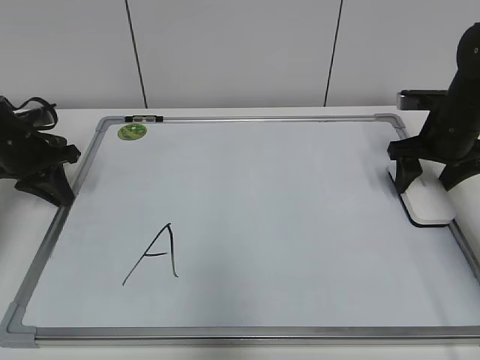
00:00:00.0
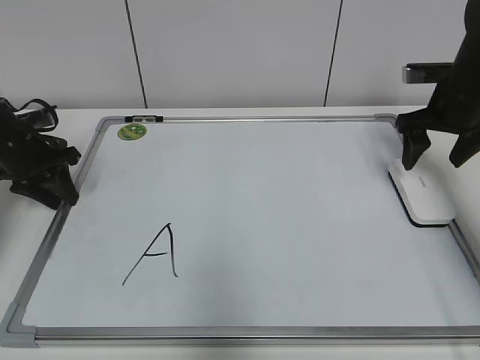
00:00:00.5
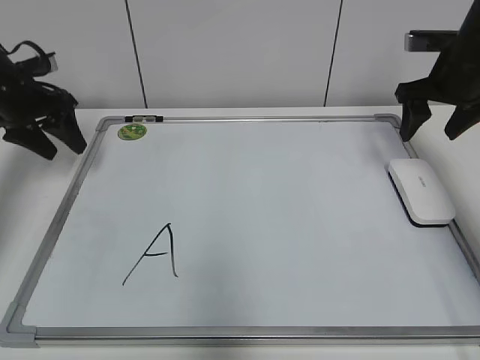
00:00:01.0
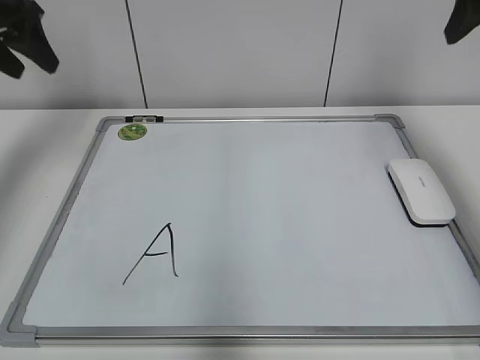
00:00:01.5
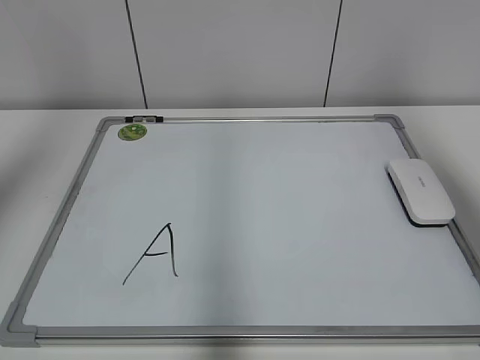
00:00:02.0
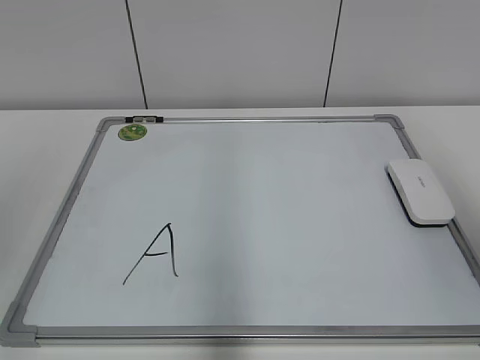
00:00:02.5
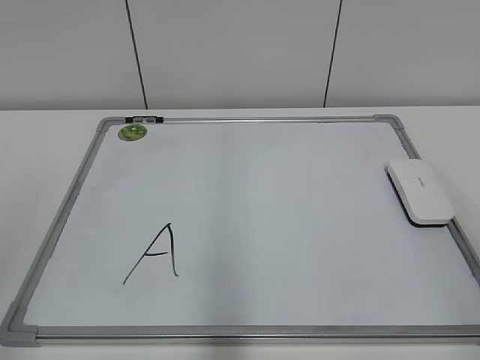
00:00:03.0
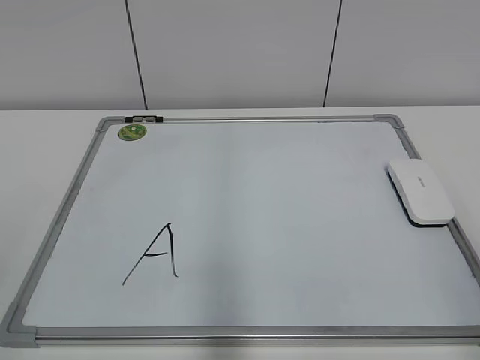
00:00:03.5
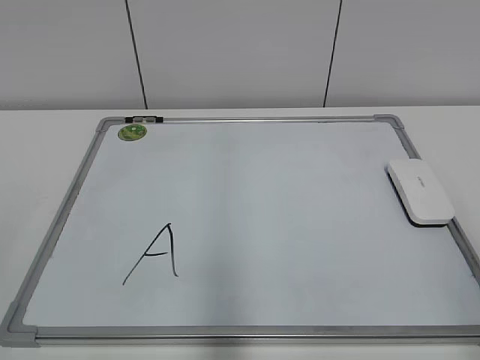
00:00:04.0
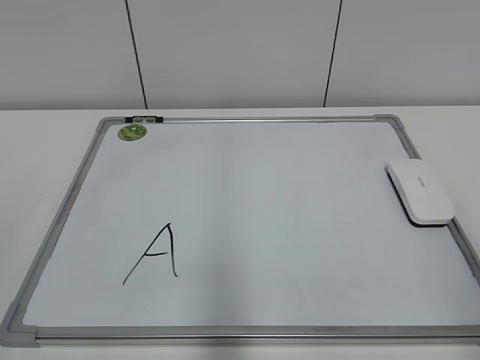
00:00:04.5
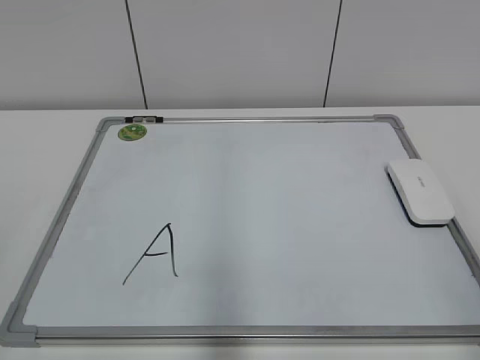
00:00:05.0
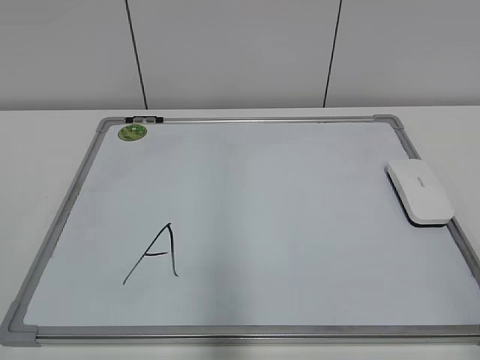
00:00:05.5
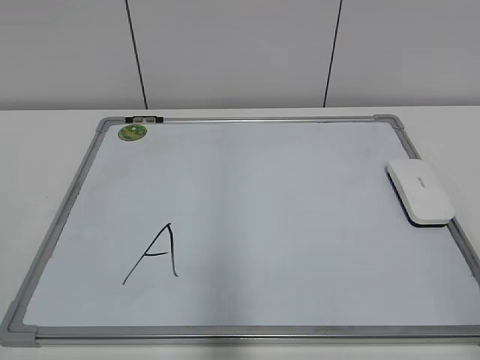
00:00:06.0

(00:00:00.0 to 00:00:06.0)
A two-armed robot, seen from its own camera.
Task of the whole recording: pick up the eraser on the blackboard and erase the letter "a".
00:00:00.0 - 00:00:02.0: The two grippers go roughly 35 cm upward and backward. The left gripper opens its fingers.
00:00:02.0 - 00:00:04.0: The left gripper shifts roughly 30 cm backward and downward; the right gripper heads downward and backward, covering roughly 25 cm.

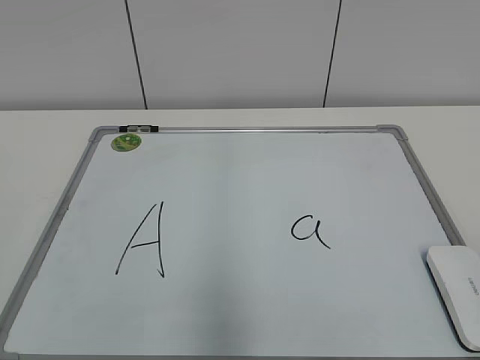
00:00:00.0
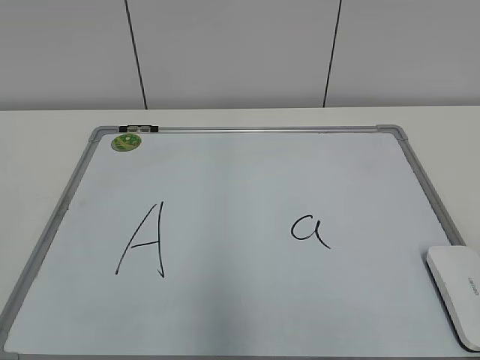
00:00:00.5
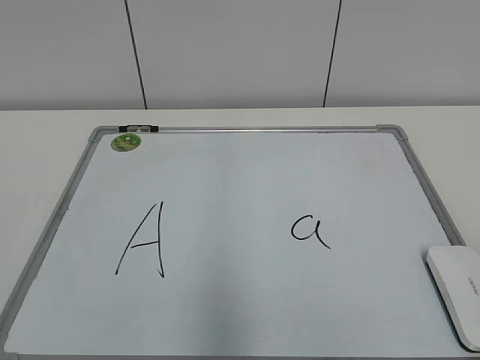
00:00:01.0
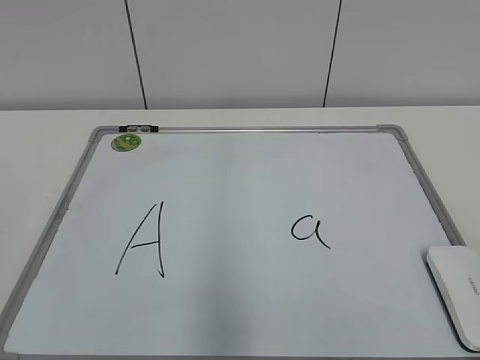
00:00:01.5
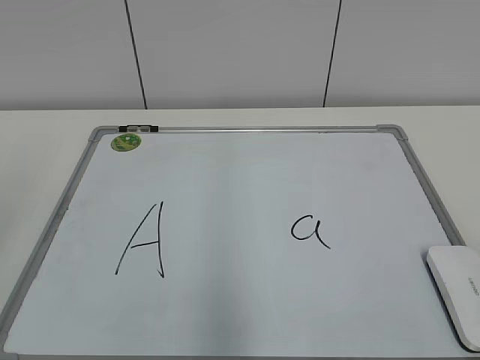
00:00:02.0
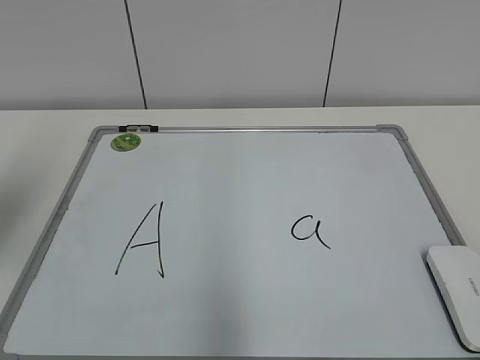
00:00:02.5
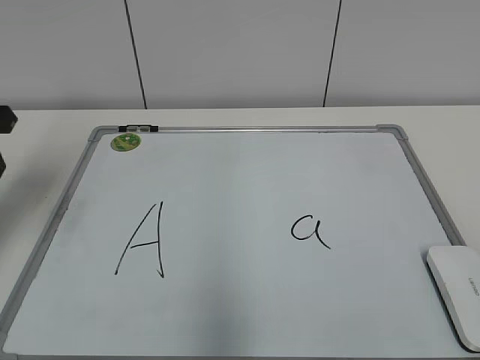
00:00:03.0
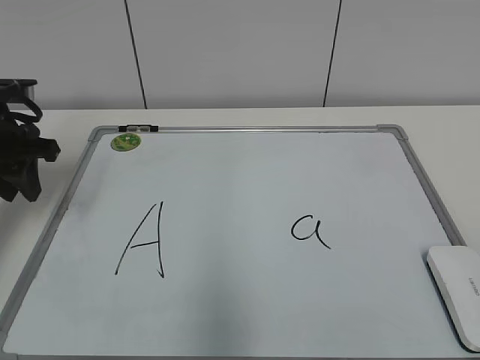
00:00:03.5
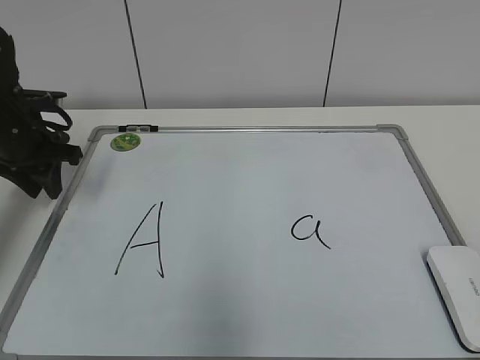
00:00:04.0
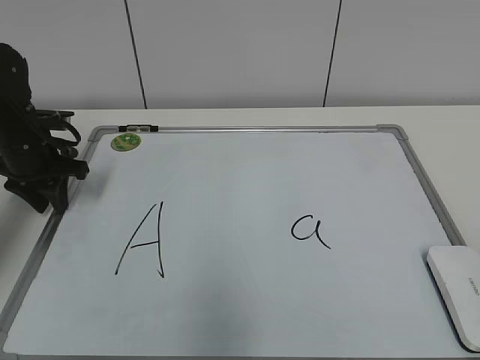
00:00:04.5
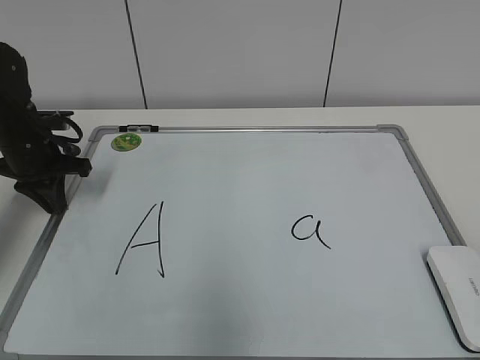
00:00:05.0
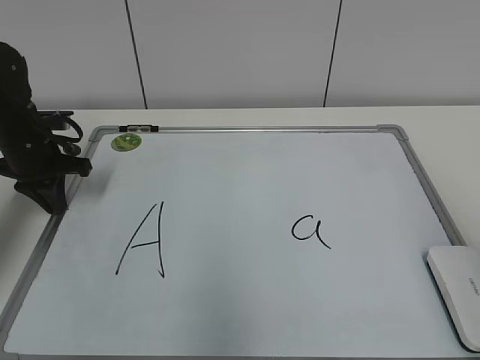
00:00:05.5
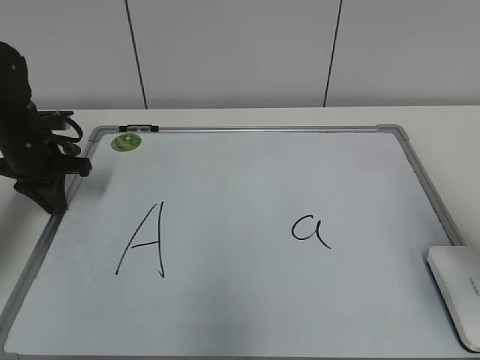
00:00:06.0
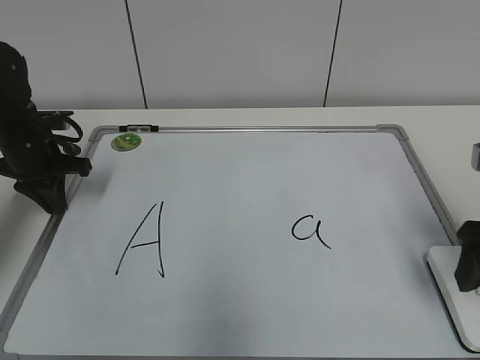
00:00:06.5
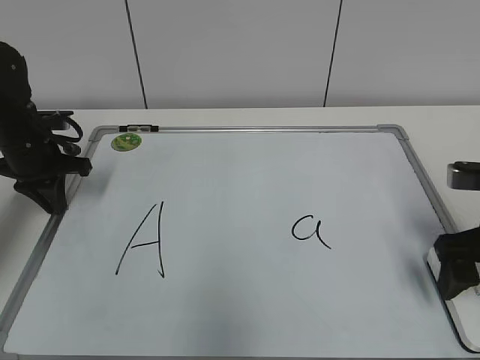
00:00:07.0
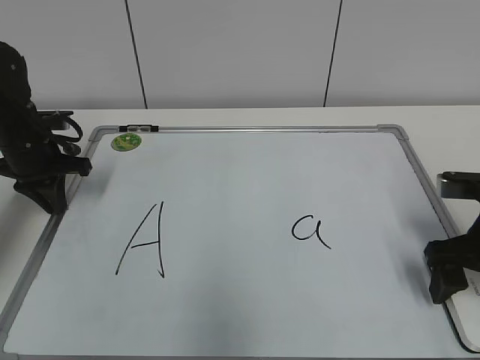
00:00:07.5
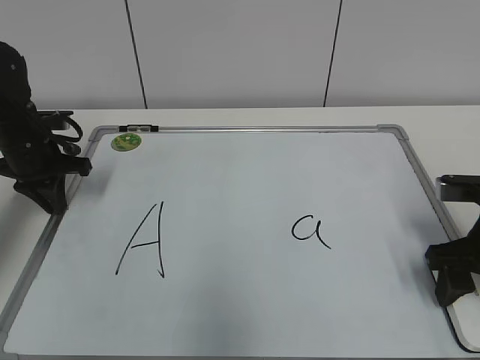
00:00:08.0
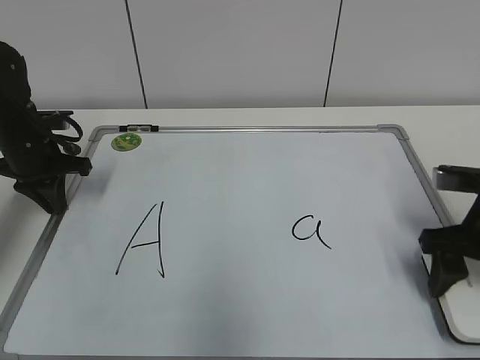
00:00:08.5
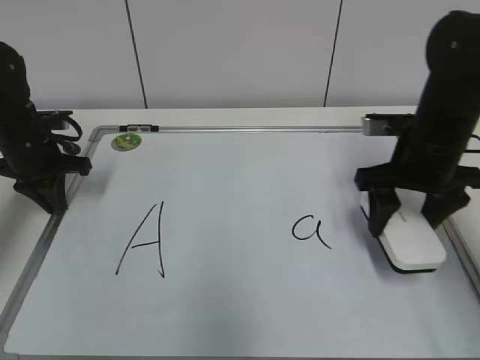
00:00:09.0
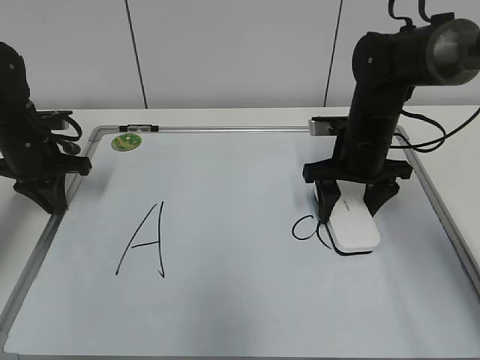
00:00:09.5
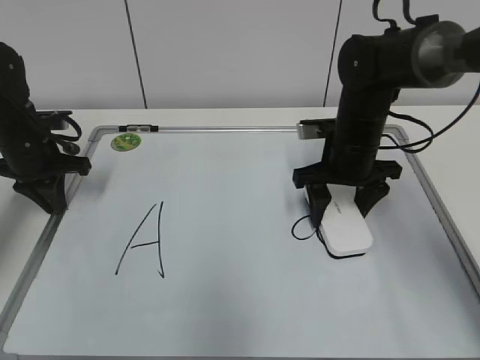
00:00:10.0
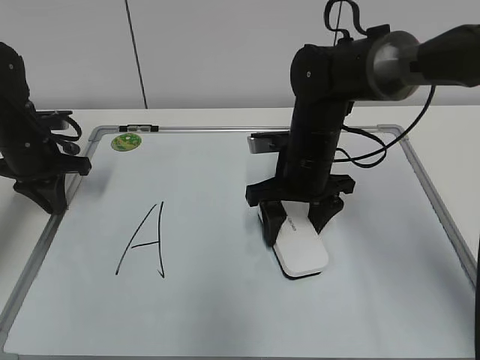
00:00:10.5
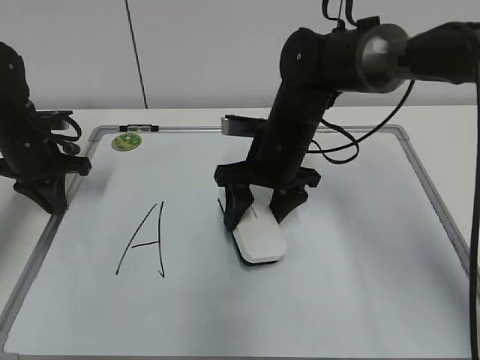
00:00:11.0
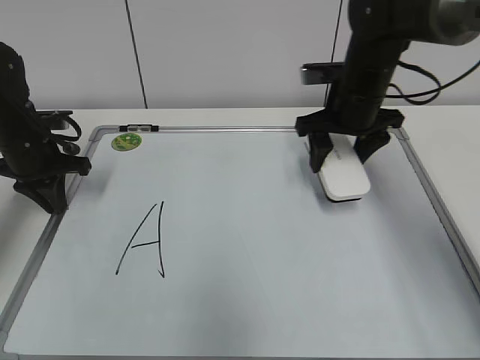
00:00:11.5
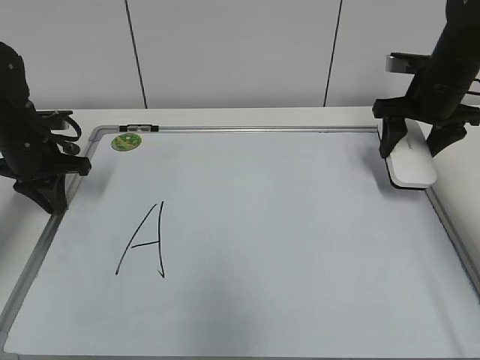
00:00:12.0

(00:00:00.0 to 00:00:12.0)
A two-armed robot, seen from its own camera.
Task of the whole recording: pick up the eraser on the blackboard and erase the letter "a".
Step, 00:00:00.0 - 00:00:04.5: Hold the drawing board steady with your left hand.
Step, 00:00:05.5 - 00:00:08.0: Grab the eraser with your right hand.
Step, 00:00:08.5 - 00:00:10.5: Erase the letter a with your right hand.
00:00:02.0 - 00:00:04.0: The left gripper goes approximately 35 cm forward and downward.
00:00:04.0 - 00:00:06.0: The right gripper moves forward, about 20 cm, and opens its fingers, while the left gripper closes up.
00:00:06.0 - 00:00:08.0: The right gripper shifts approximately 15 cm downward and forward, and closes its fingers.
00:00:08.0 - 00:00:10.0: The right gripper travels forward and to the left by roughly 20 cm.
00:00:10.0 - 00:00:12.0: The right gripper travels to the right and upward by about 15 cm.

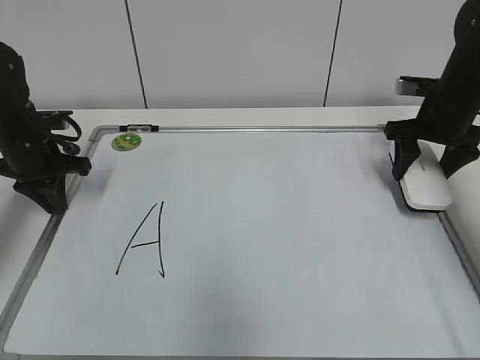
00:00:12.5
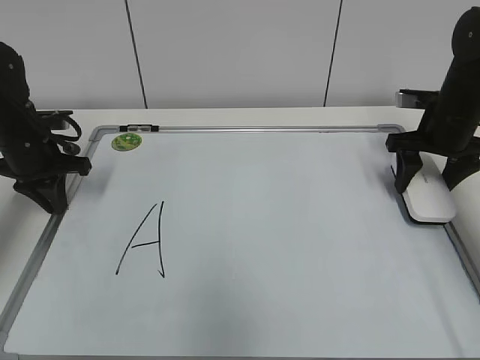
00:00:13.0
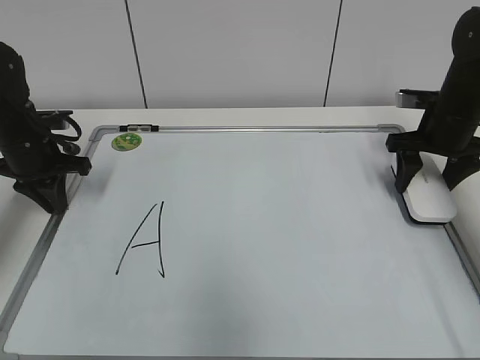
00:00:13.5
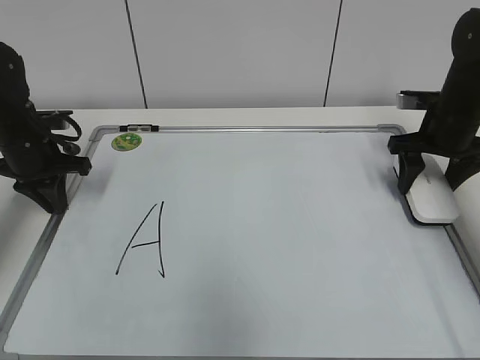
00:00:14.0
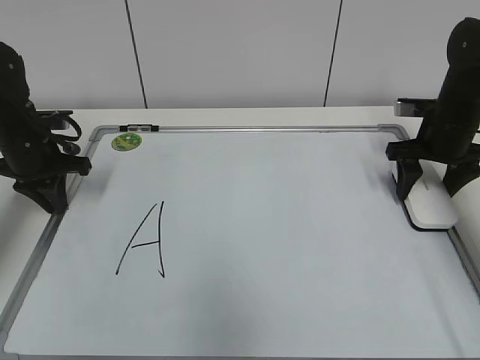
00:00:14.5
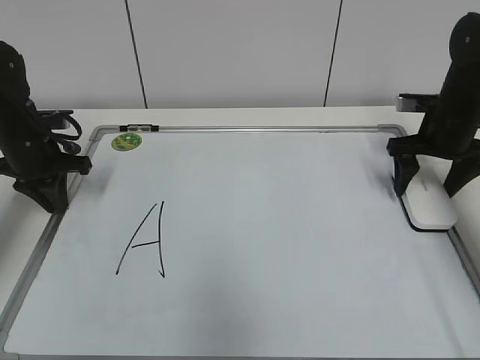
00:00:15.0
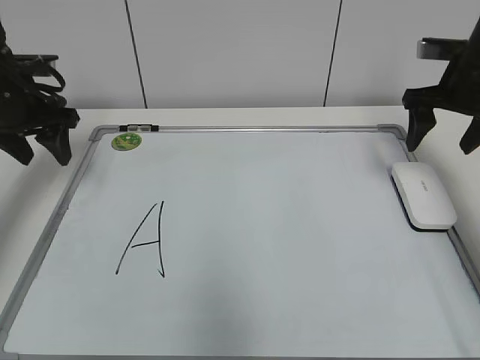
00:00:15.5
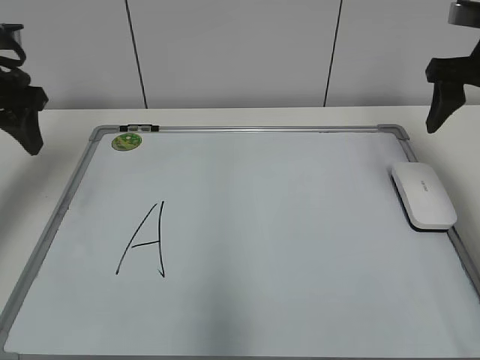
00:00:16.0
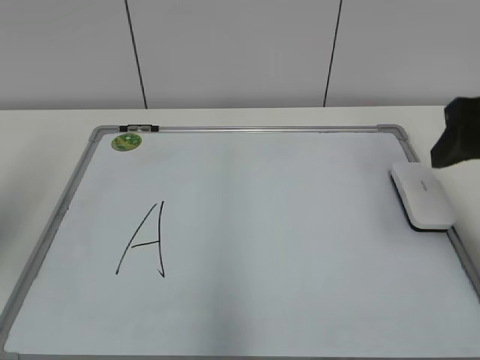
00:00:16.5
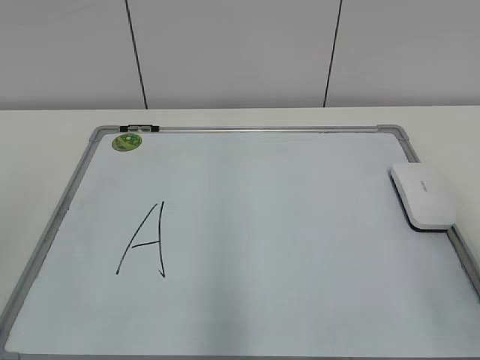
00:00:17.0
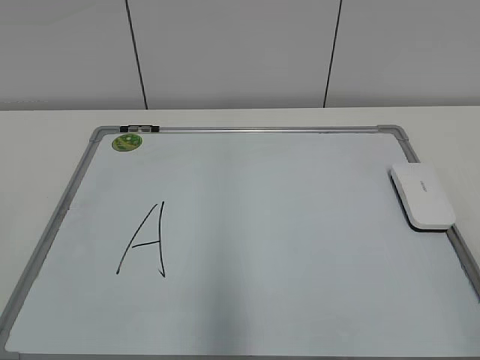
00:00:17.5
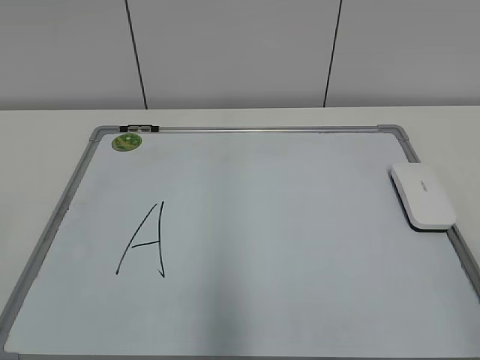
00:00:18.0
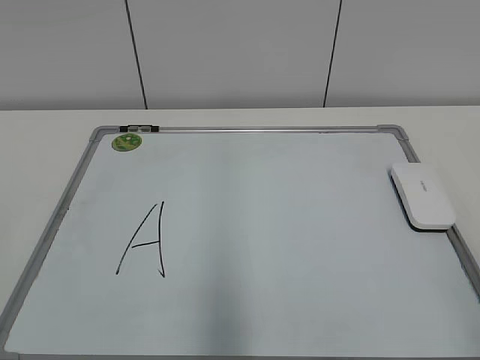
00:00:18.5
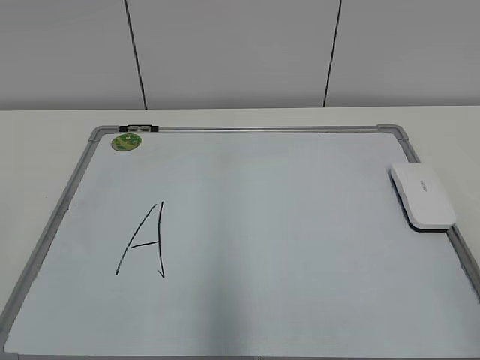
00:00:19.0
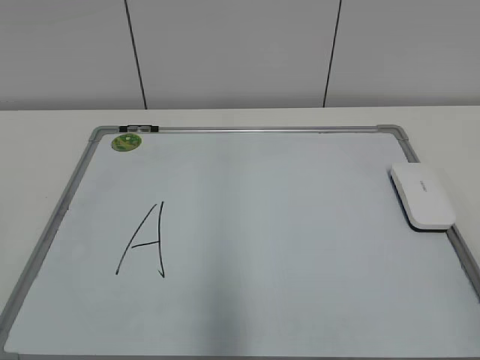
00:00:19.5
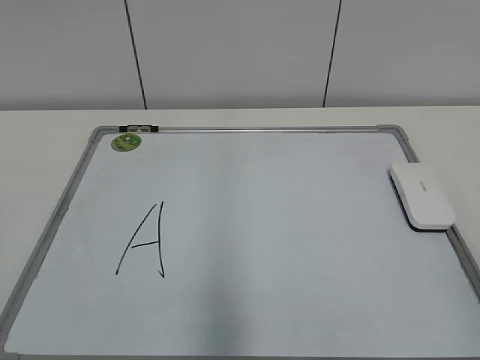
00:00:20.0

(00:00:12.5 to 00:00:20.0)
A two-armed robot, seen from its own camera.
Task of the whole recording: pick up the eraser on the blackboard and erase the letter "a".
Step, 00:00:12.5 - 00:00:14.5: Put down the eraser with your right hand.
00:00:12.5 - 00:00:14.5: The grippers stay close to where they were, moving slightly.
00:00:14.5 - 00:00:16.5: Both grippers travel together backward and upward, approximately 25 cm. The left gripper opens. The right gripper opens its fingers.
00:00:16.5 - 00:00:18.0: The right gripper goes some 25 cm backward.
